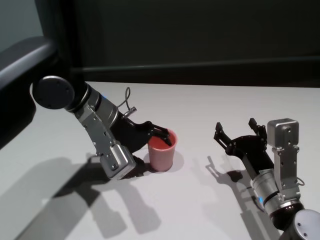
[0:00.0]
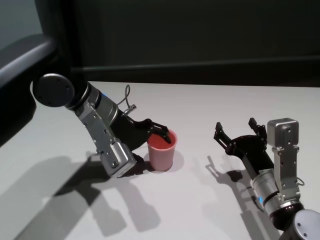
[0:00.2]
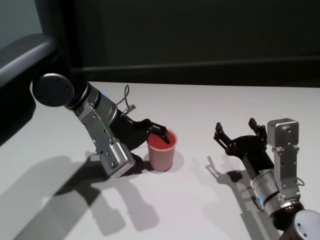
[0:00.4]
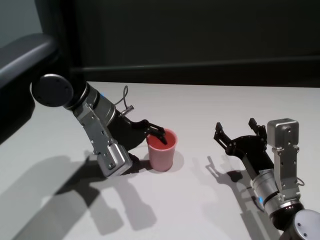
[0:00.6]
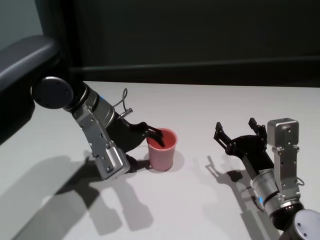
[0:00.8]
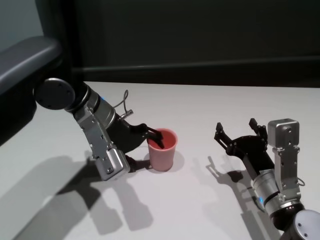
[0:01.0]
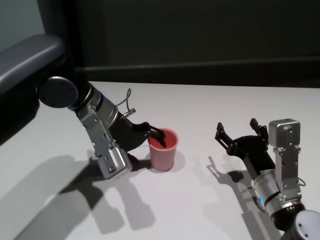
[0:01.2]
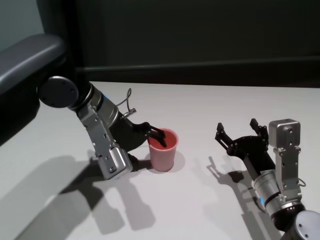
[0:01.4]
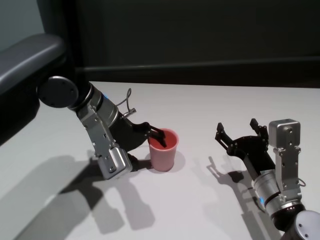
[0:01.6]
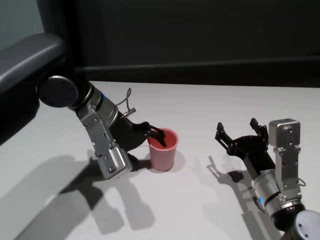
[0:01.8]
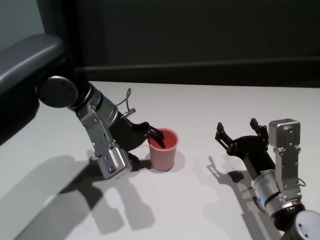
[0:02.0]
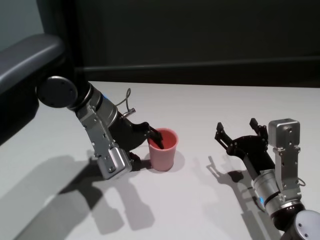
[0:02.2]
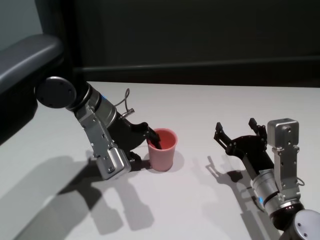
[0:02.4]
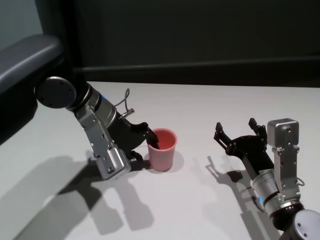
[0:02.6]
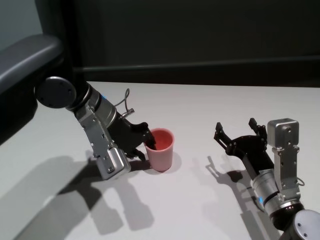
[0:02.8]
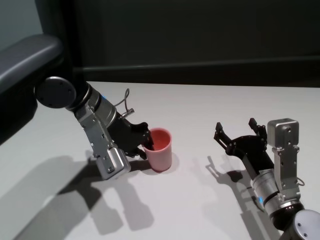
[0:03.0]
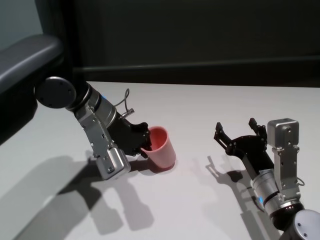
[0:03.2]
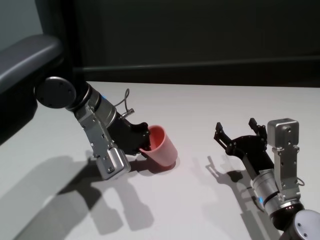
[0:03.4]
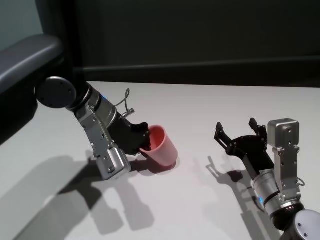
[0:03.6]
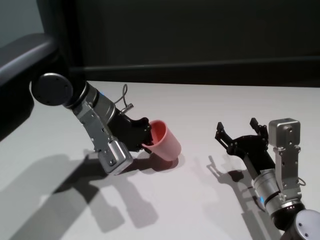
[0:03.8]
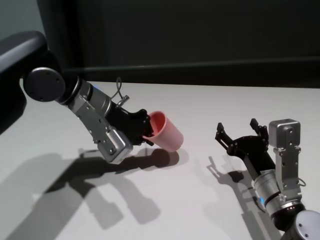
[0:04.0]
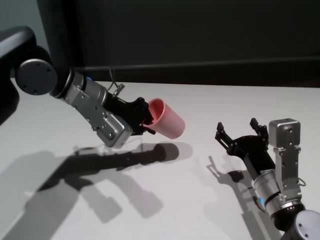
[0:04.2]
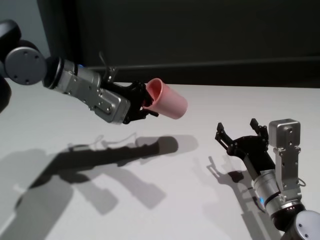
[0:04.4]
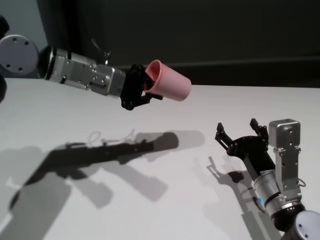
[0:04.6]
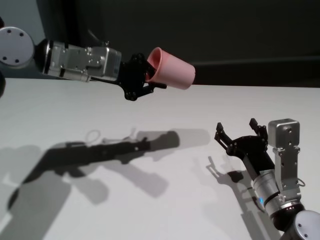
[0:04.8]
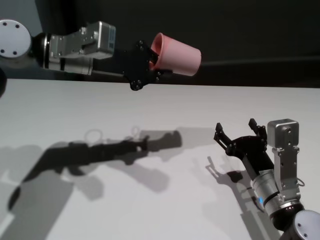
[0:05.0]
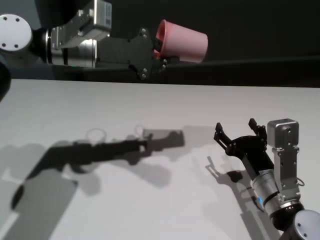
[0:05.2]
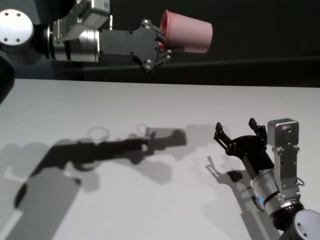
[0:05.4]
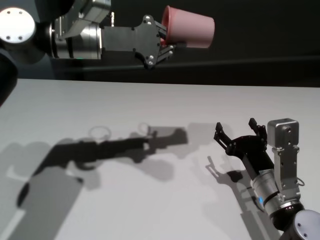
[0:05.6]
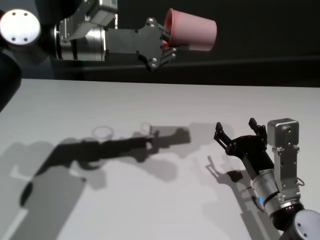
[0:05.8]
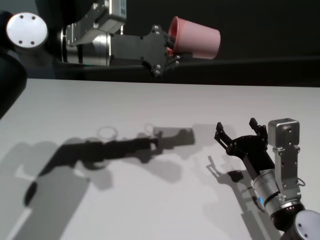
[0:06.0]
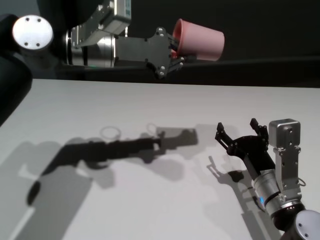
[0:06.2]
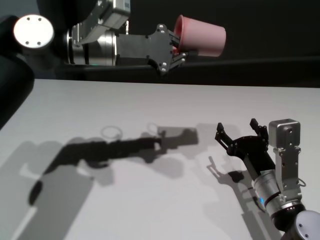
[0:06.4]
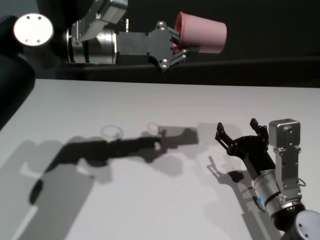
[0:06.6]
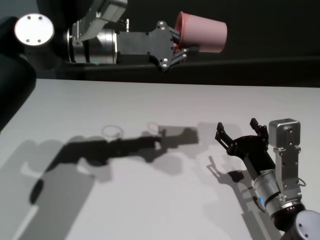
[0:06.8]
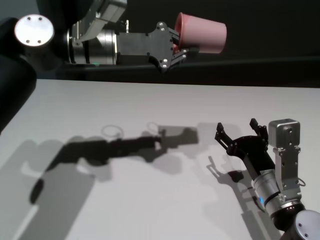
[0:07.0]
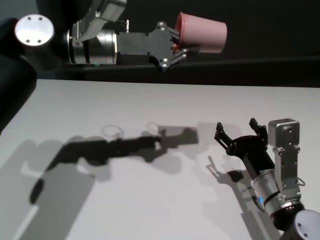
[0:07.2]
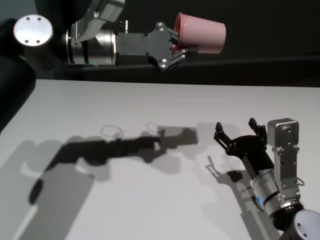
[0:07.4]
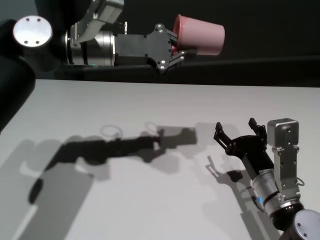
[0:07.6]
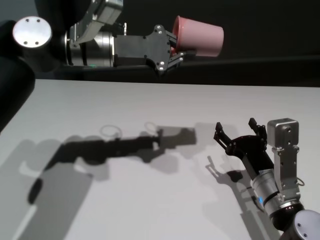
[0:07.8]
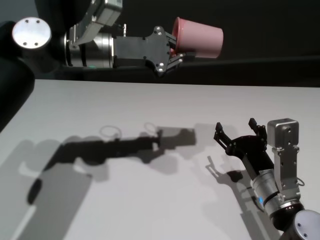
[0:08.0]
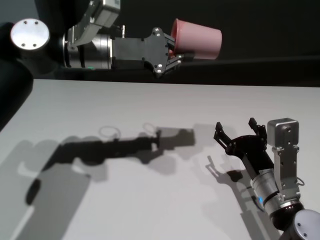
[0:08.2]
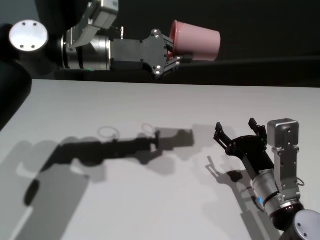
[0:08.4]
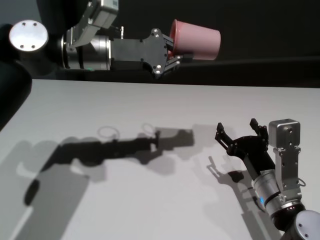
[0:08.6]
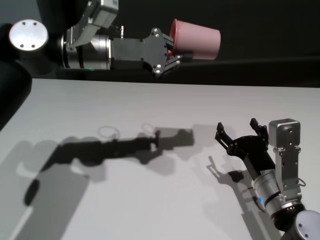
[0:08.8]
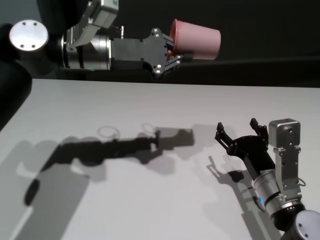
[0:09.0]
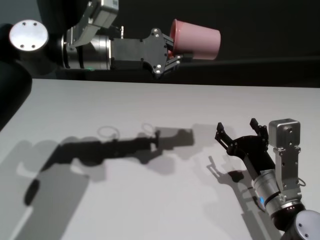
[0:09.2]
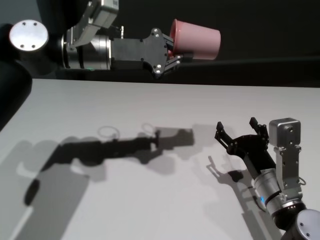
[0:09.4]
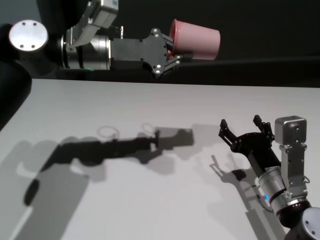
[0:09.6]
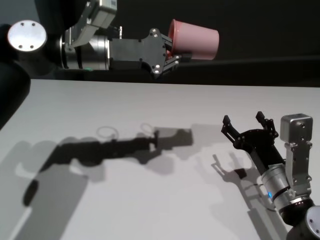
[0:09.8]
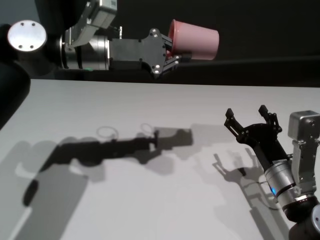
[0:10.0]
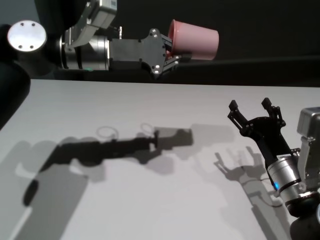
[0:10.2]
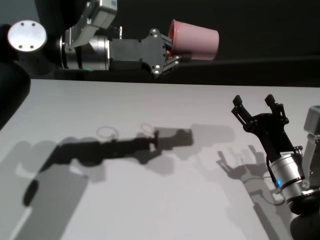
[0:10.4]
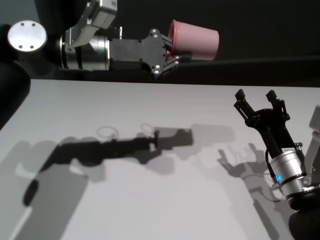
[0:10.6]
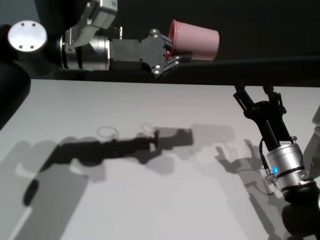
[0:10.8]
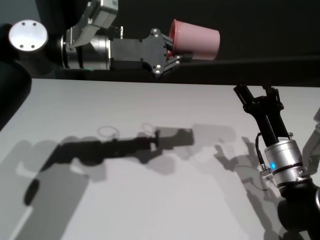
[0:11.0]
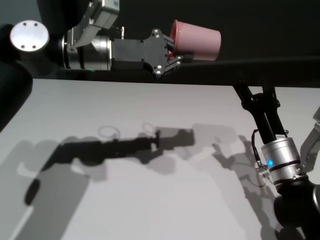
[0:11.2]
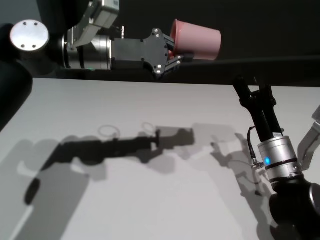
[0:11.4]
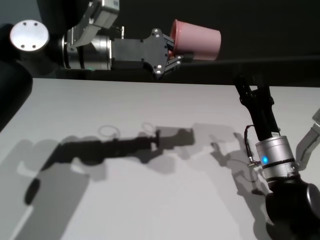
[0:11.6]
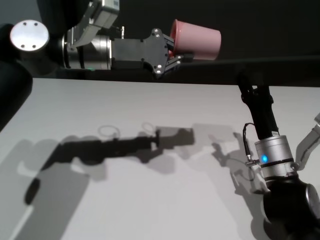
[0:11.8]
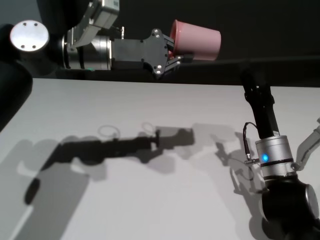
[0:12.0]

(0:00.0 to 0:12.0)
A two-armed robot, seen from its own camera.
Task of the whole recording: On the white table pick up the cup with one hand and transfer it to the other hand before turning it over.
Step, 0:00.0 - 0:02.6: Grasp the cup with left gripper.

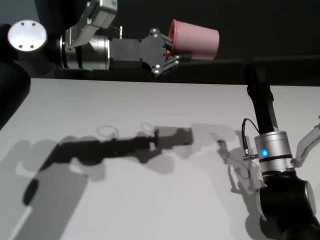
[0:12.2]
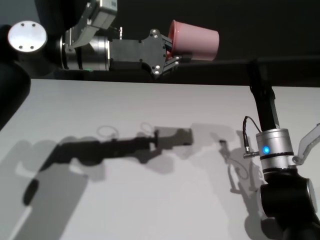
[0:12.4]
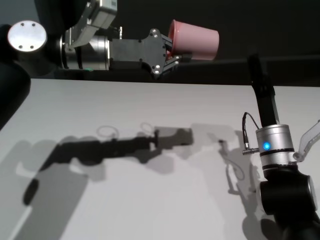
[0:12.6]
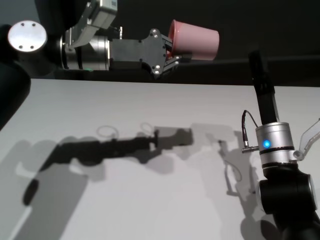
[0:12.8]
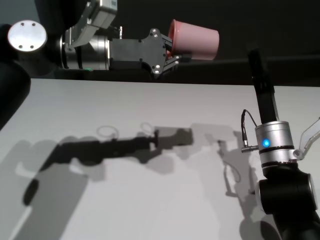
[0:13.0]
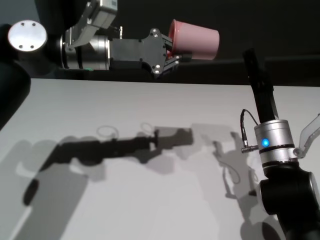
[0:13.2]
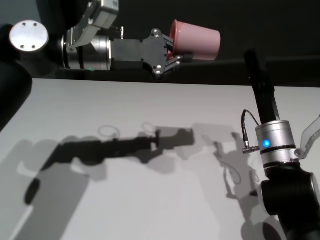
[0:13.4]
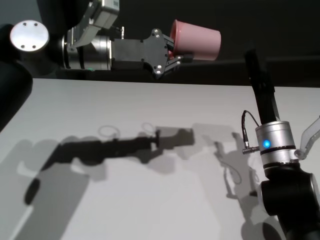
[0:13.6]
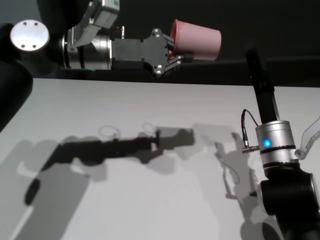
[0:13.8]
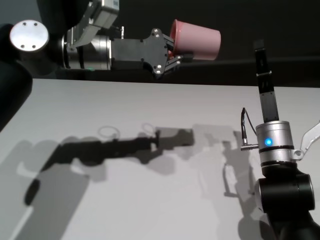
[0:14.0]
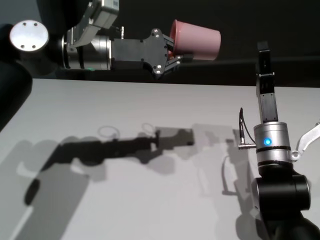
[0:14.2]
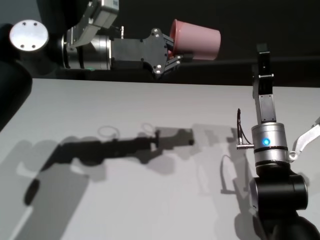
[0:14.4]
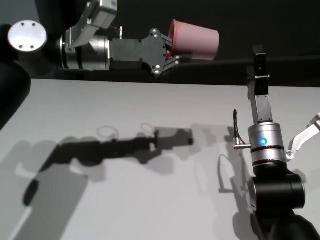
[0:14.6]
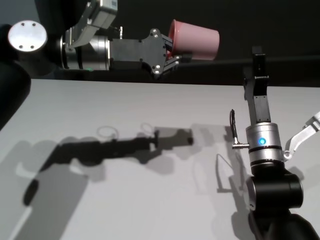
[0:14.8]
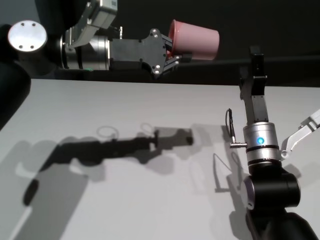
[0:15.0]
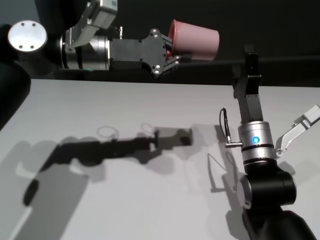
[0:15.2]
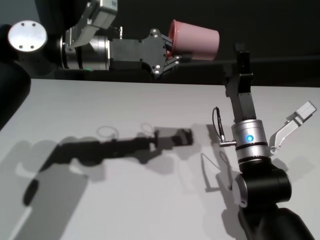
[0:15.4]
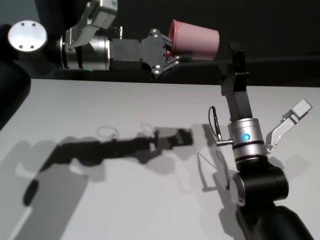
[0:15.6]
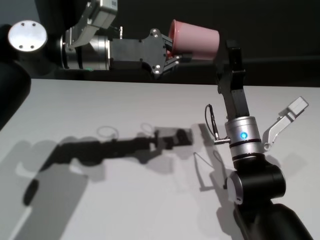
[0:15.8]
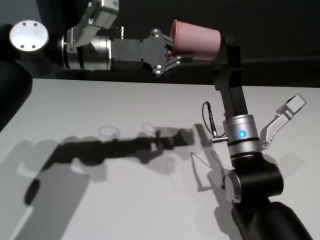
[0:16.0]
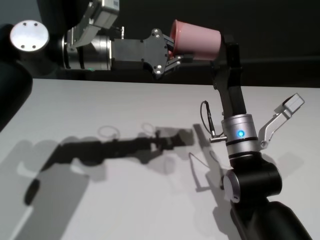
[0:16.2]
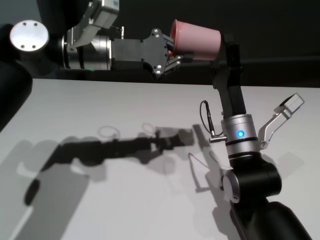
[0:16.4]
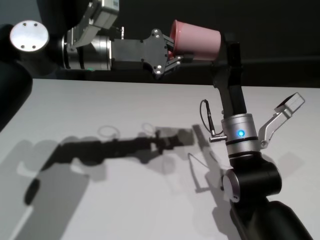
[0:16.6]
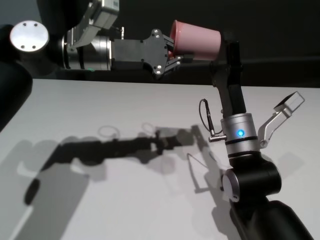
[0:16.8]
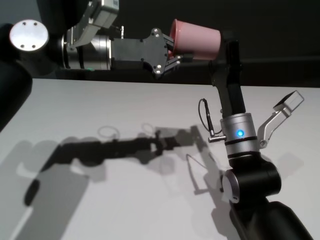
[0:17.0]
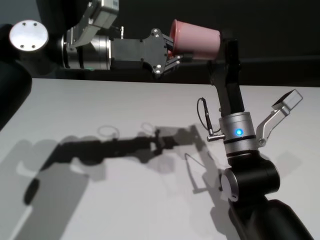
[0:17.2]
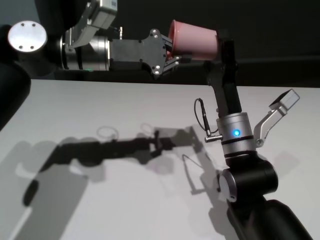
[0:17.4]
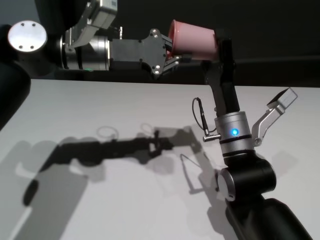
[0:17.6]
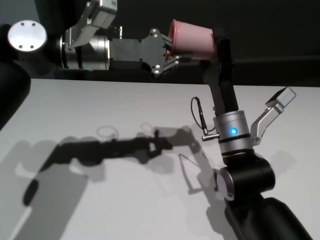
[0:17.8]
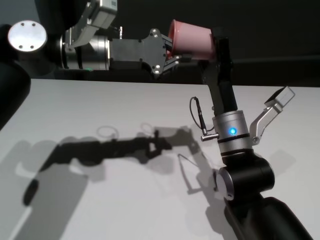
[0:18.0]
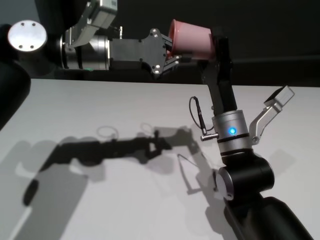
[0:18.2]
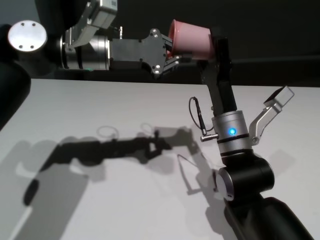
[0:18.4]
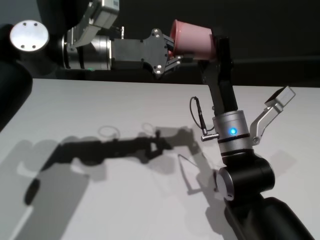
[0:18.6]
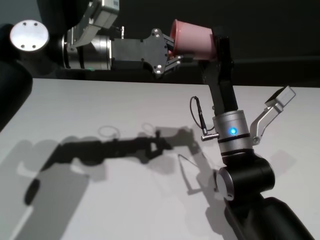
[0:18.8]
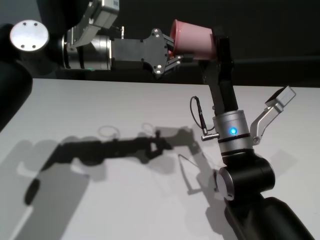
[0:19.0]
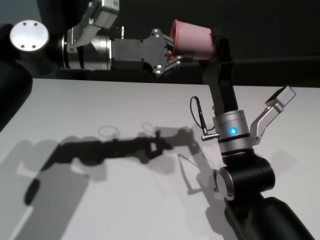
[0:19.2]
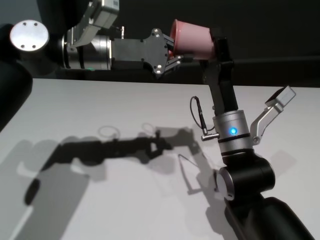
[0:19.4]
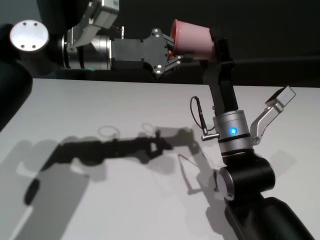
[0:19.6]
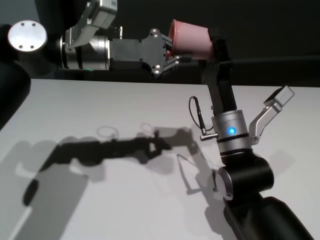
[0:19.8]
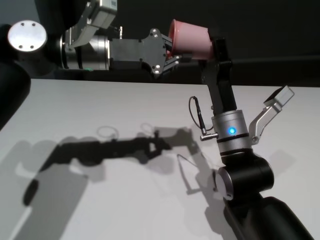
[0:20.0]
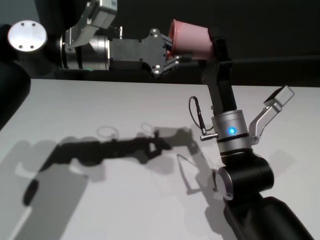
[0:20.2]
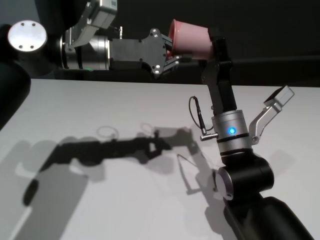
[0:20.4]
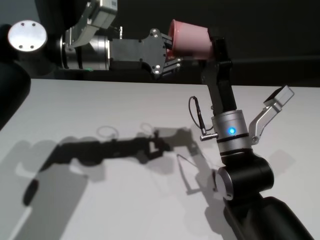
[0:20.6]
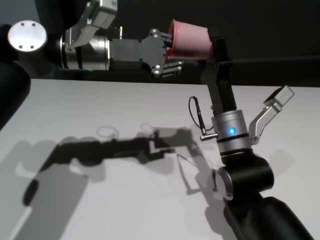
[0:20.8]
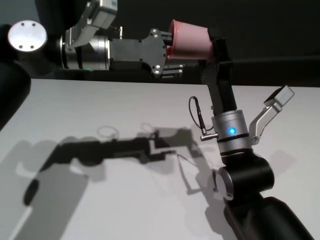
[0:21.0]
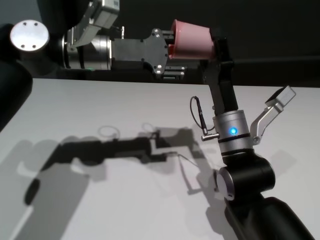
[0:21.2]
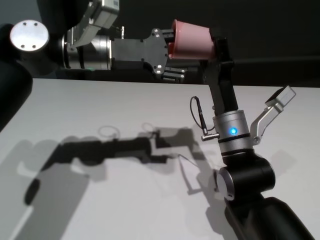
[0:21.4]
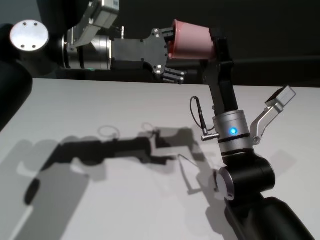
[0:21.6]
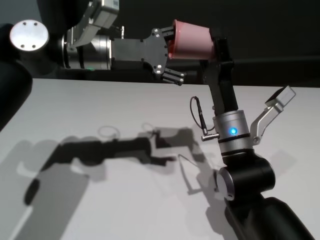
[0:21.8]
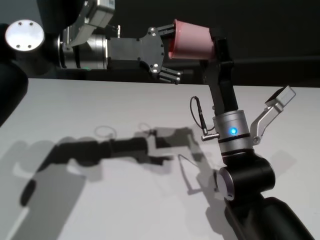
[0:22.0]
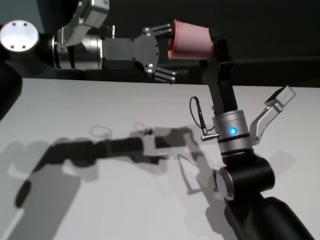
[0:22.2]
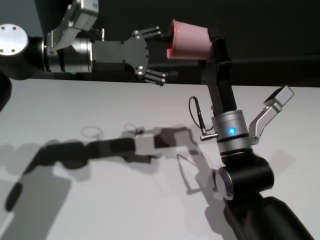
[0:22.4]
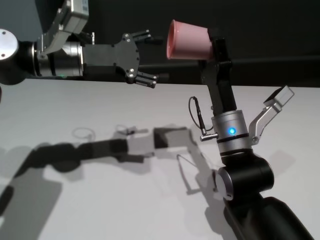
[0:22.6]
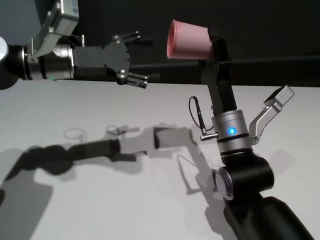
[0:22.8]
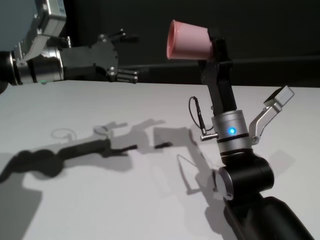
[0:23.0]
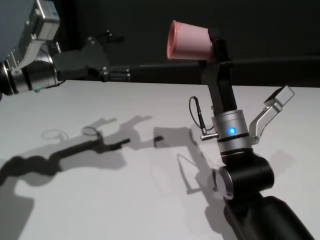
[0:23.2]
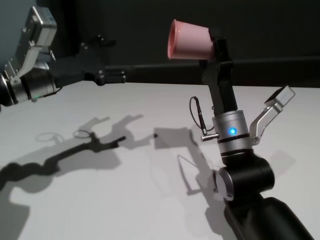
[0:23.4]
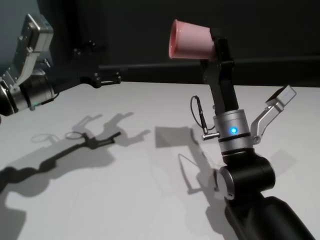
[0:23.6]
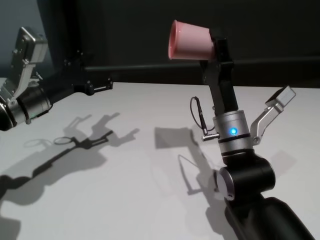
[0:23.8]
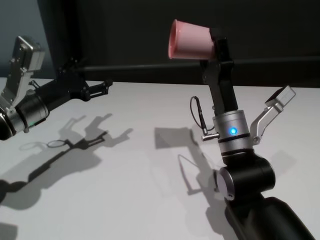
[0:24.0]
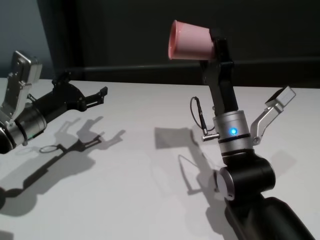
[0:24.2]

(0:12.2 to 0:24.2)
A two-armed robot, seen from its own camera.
Task of the whole recording: On the white table pick up the cup with one hand and transfer it to the other hand before turning it over.
Step, 0:12.2 - 0:22.8: Pass the cup to the right gripper.
